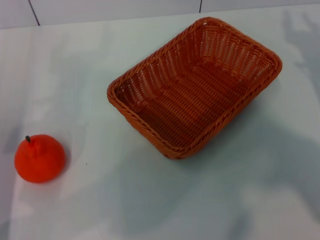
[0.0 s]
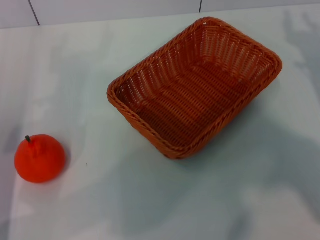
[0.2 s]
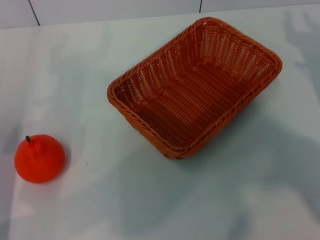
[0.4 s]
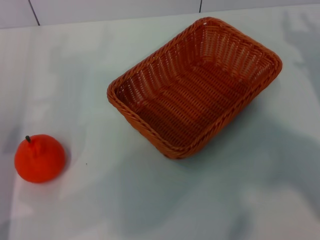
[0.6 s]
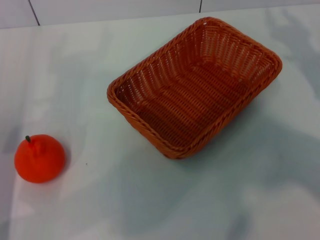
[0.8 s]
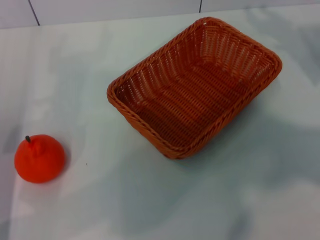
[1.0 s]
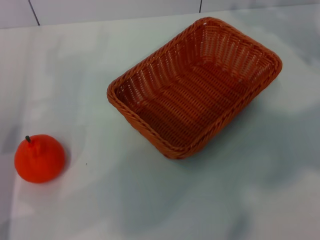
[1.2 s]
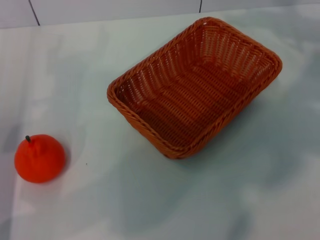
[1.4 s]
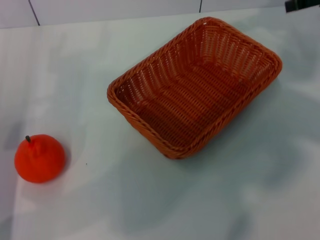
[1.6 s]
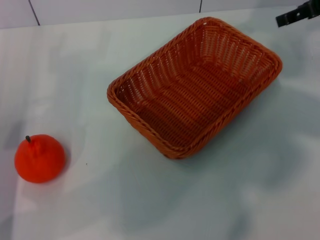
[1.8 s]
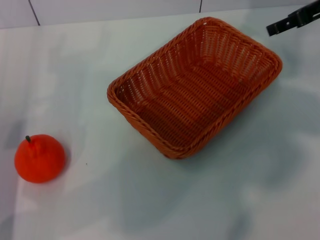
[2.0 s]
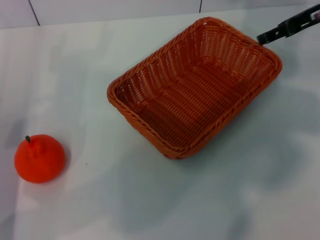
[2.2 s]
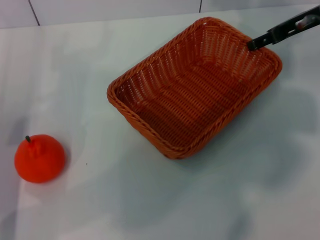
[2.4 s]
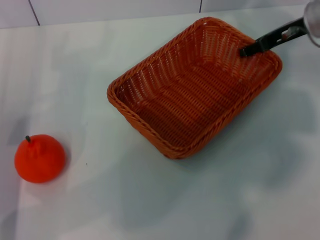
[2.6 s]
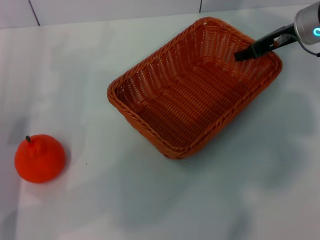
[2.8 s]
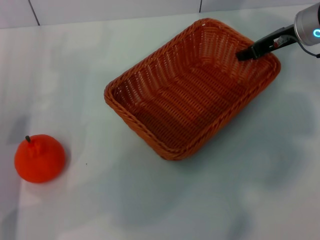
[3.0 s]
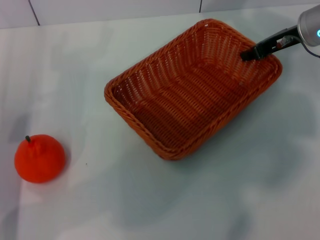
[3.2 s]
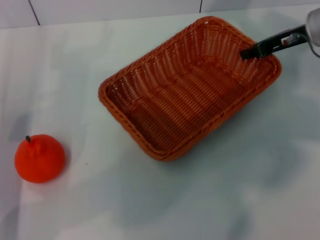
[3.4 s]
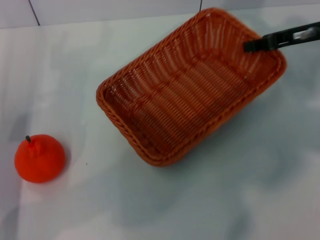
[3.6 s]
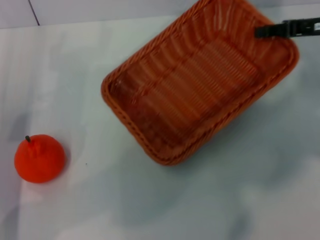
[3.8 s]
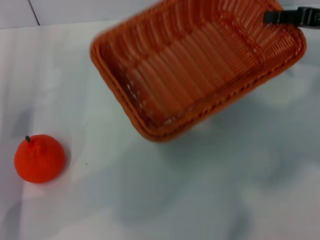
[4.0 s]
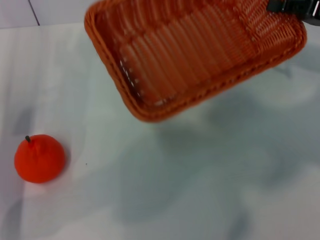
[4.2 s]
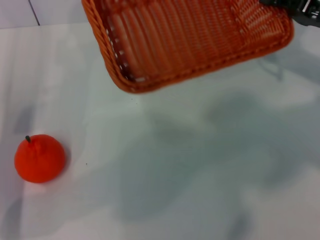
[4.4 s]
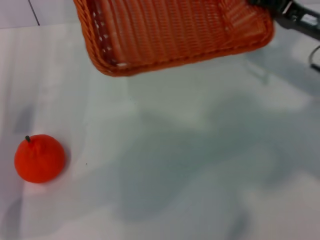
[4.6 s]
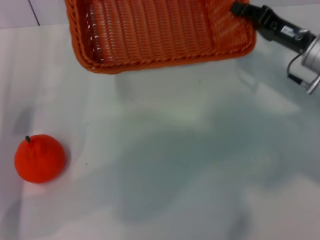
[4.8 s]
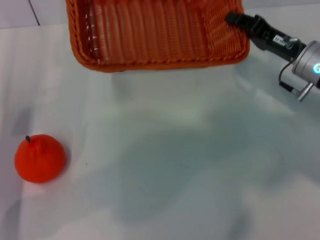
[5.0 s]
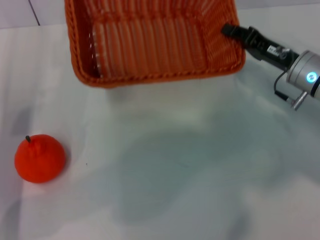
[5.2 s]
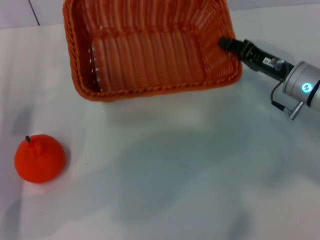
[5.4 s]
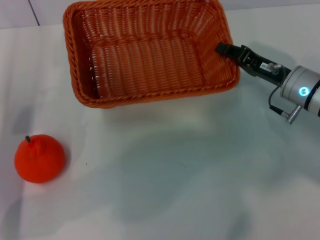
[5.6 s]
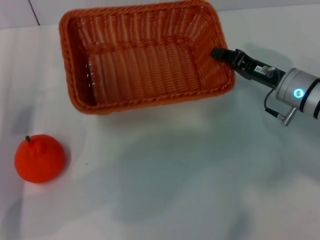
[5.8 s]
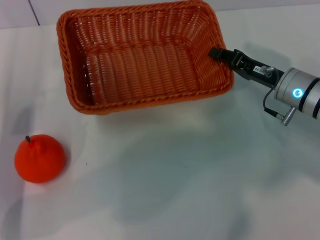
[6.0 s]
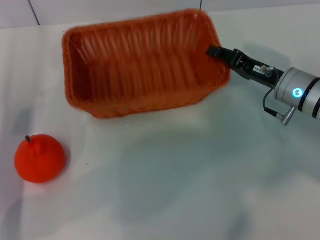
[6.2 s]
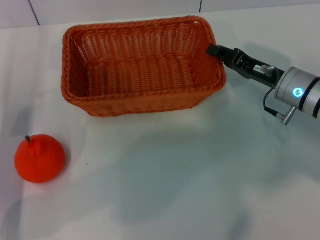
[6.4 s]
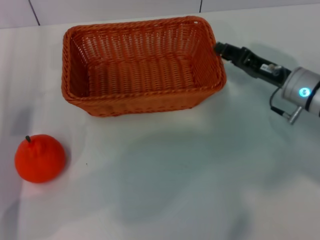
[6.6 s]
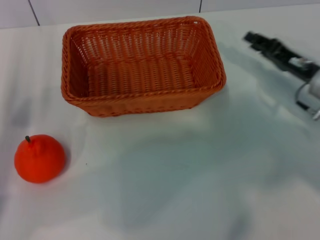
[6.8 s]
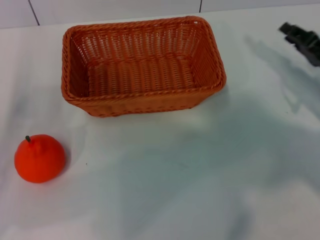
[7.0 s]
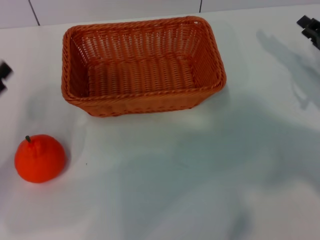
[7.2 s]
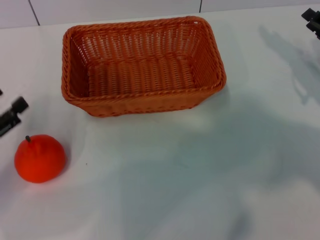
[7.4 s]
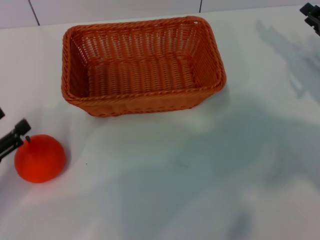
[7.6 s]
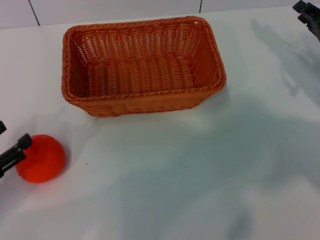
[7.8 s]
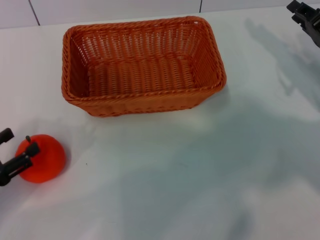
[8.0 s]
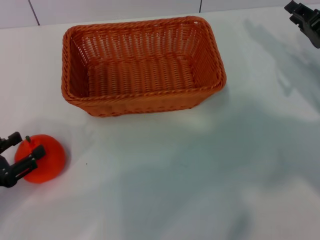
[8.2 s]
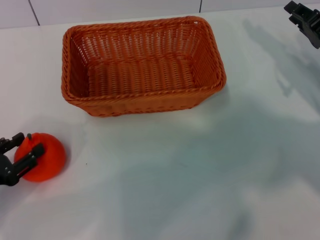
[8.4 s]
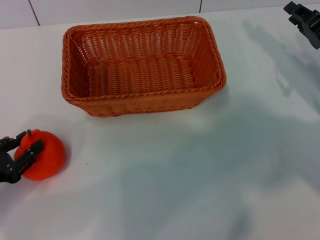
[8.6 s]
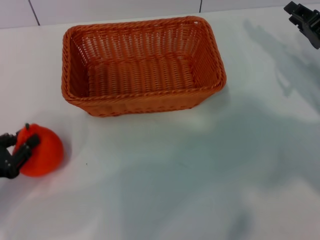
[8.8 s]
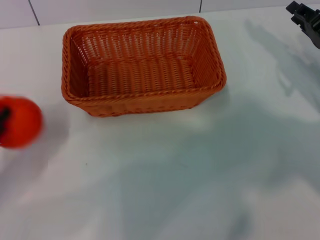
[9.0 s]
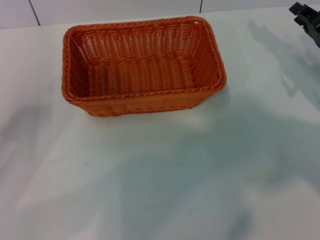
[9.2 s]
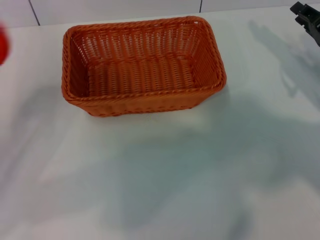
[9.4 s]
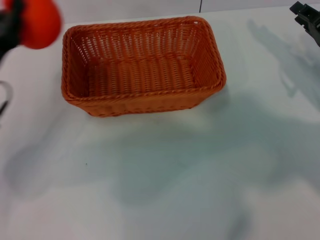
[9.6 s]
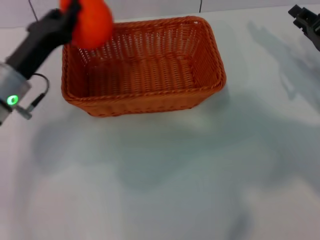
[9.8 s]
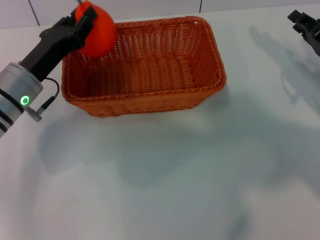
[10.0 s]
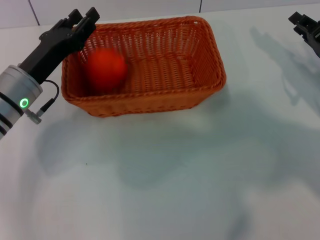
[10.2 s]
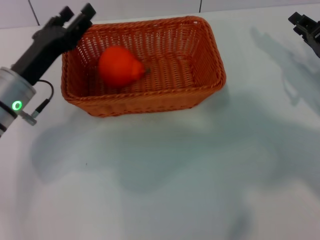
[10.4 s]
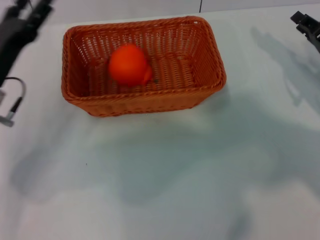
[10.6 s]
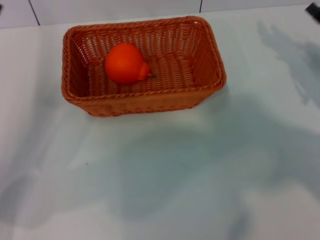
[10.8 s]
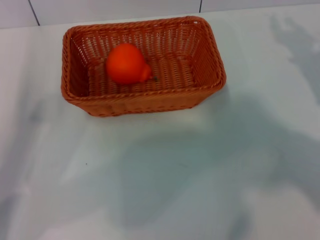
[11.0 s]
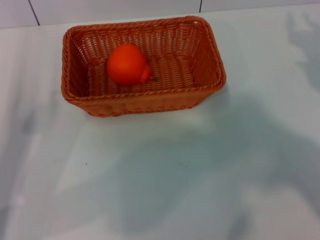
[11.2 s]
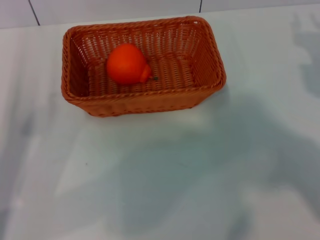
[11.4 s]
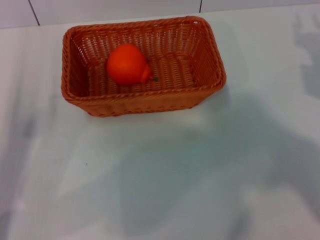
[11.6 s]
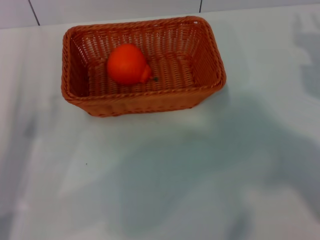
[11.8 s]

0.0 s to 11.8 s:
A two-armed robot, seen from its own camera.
Task of the whole recording: the right gripper pick up the yellow basket and place it horizontally in the middle of the table, the left gripper pick up the orange and place it into the yellow basket.
Step, 0.0 to 3.8 s: Pick up the light basket with the right gripper.
Step, 4.0 to 6.6 s: Place the light basket in the center of view with the right gripper.
Step, 6.8 to 8.8 s: Pick up the orange with the left gripper.
Step, 9.0 to 10.2 s: Place the orange into the light basket with the left gripper.
0.0 to 1.4 s: The right gripper shifts roughly 15 cm upward and forward.
1.4 to 3.0 s: The right gripper shifts roughly 15 cm to the left and downward.
3.0 to 4.4 s: The right gripper shifts approximately 10 cm to the right and backward, and closes its fingers.
4.4 to 6.0 s: The right gripper shifts roughly 10 cm downward and to the left.
6.0 to 7.4 s: The right gripper heads to the right, covering about 10 cm, and opens its fingers; the left gripper is displaced backward and to the left by some 10 cm.
7.4 to 8.8 s: The left gripper closes up.
8.8 to 10.4 s: The left gripper shifts roughly 15 cm forward and to the right.
10.4 to 11.8 s: The left gripper heads backward and to the left, covering about 10 cm, and opens up, while the right gripper shifts approximately 5 cm backward.

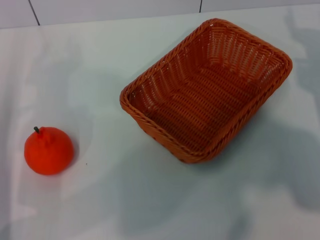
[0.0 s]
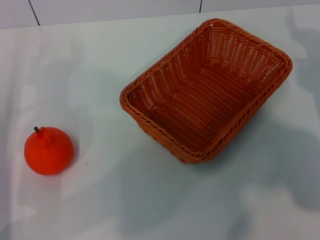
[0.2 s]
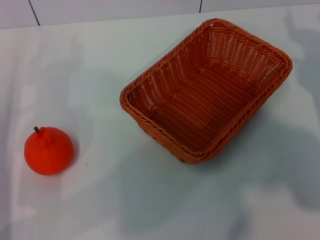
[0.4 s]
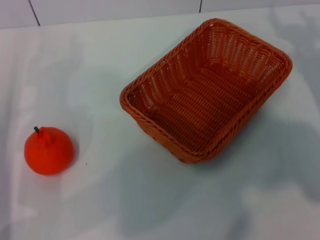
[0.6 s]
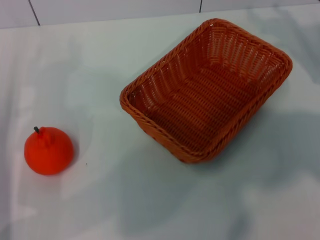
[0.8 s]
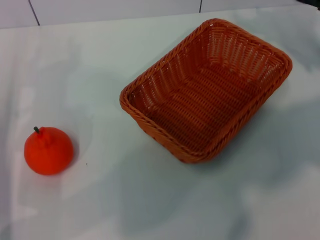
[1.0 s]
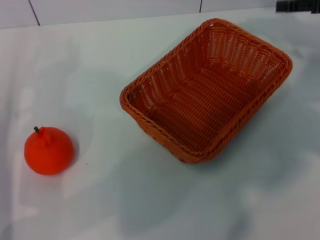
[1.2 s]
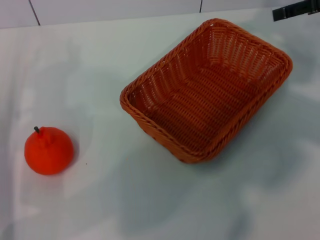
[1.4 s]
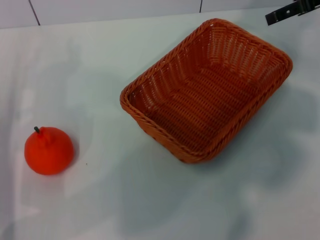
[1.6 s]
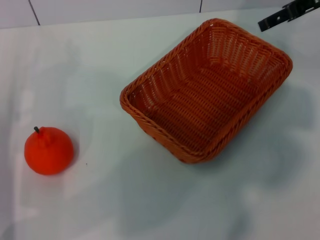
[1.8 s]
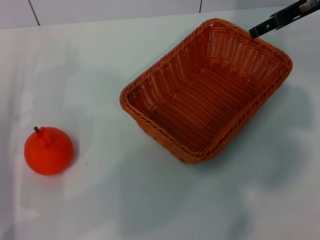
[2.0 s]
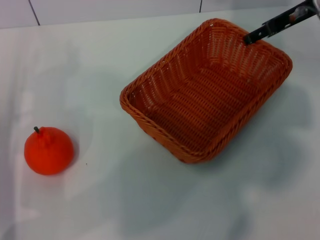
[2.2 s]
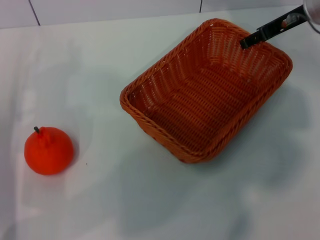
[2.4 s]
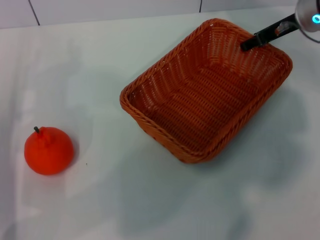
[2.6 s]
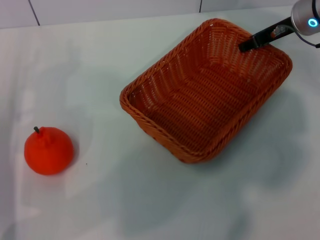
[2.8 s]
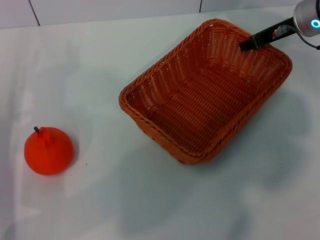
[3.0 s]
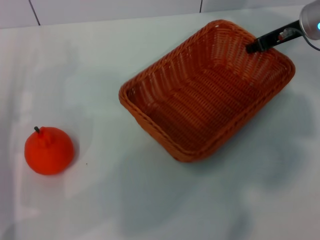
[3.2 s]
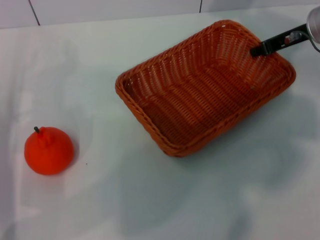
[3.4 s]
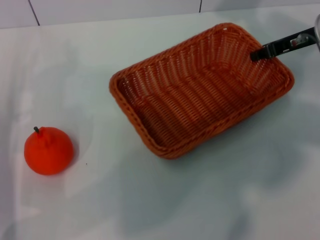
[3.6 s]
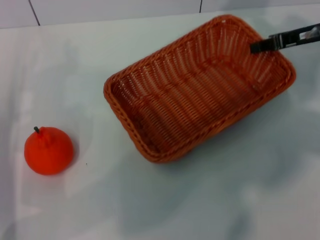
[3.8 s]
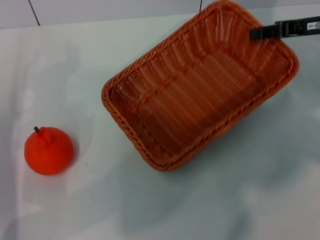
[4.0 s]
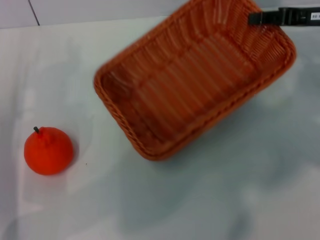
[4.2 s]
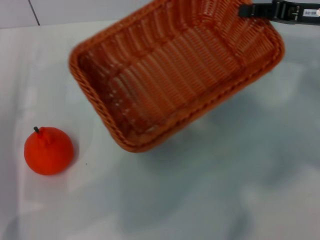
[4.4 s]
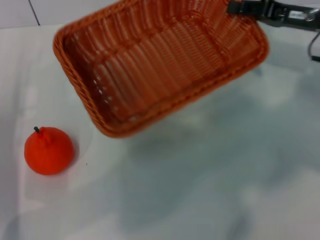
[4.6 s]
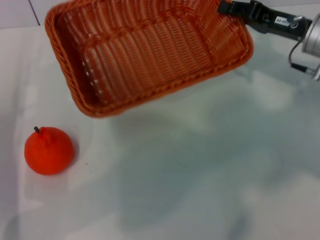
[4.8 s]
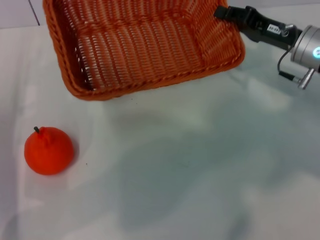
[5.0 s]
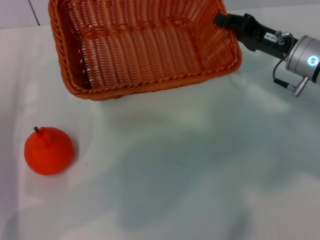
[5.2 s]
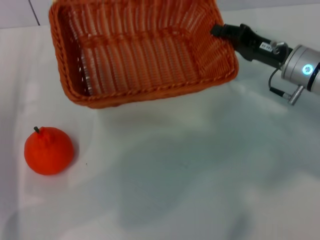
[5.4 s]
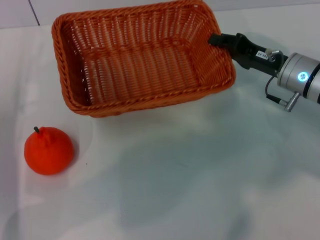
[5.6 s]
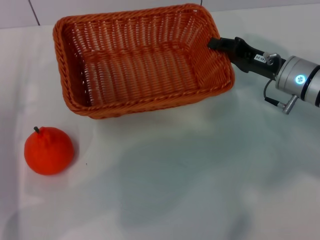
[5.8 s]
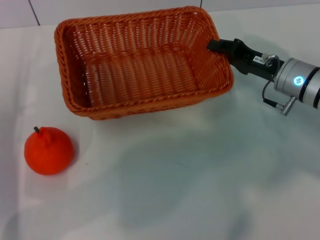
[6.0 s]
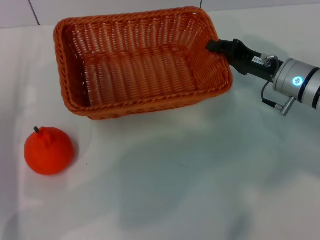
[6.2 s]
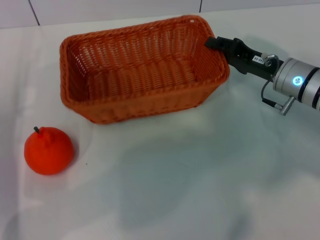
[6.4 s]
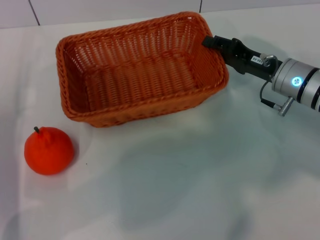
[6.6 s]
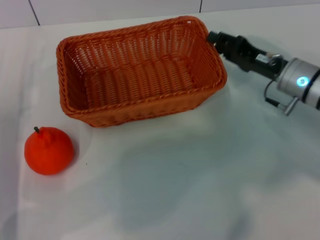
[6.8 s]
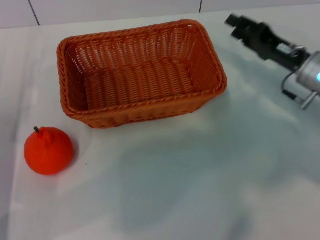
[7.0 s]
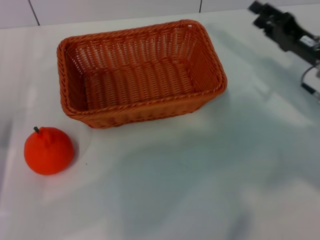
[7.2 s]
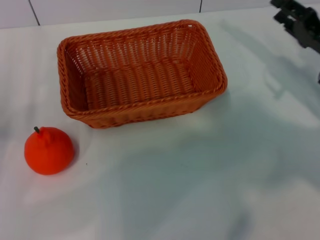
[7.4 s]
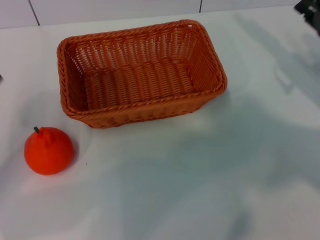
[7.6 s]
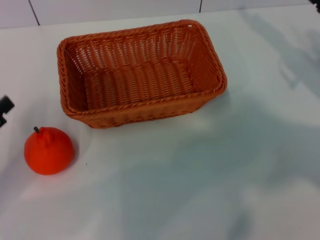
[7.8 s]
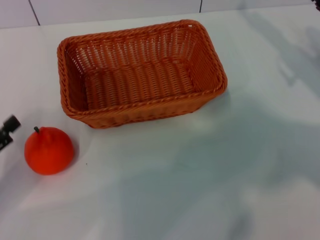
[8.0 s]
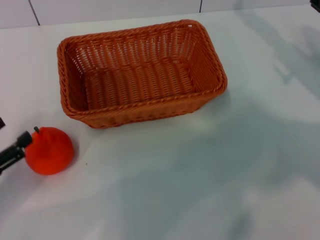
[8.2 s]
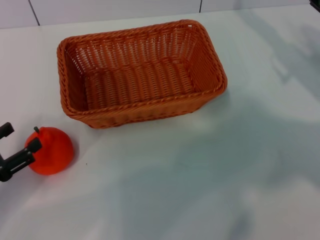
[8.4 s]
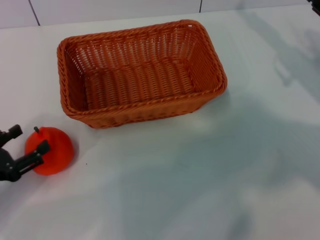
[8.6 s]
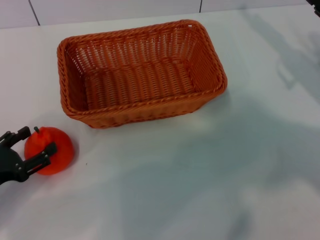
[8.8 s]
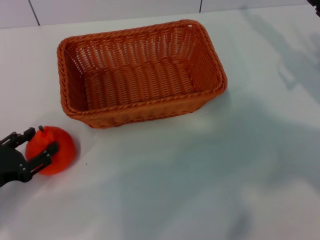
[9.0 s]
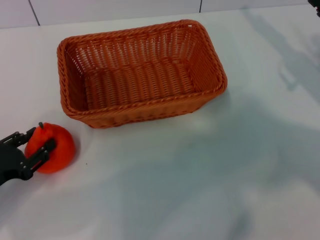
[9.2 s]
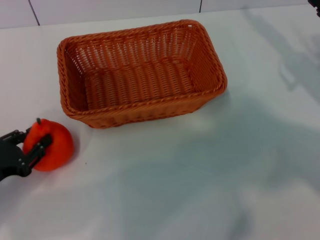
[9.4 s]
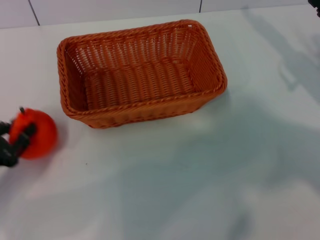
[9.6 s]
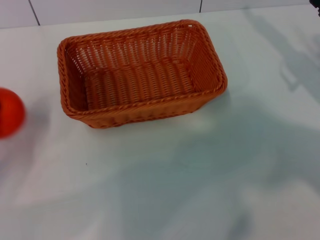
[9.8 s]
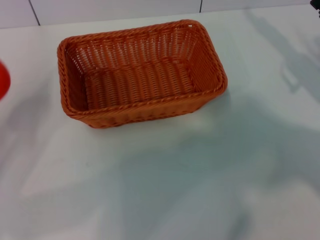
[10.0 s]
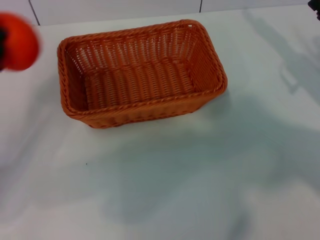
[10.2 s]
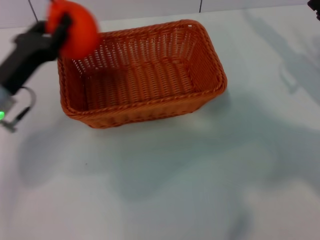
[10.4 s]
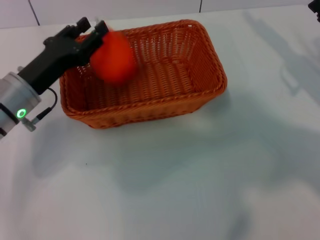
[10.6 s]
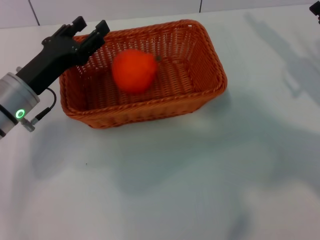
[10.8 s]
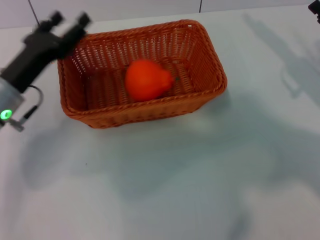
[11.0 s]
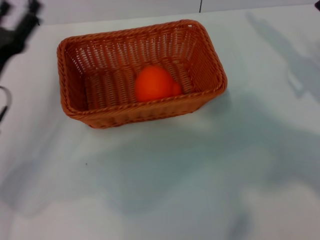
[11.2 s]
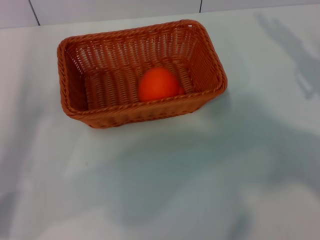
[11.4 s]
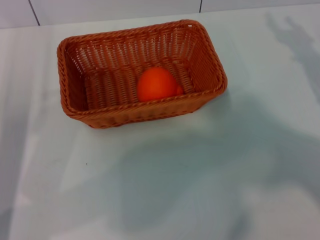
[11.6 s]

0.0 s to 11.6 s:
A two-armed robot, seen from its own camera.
Task of the whole recording: the right gripper pick up the yellow basket and place it horizontally in the middle of the table, the left gripper pick up the orange and place it into the yellow basket.
Step, 0.0 to 3.6 s: Pick up the light basket with the right gripper.
Step, 3.8 to 6.6 s: Place the light basket in the center of view with the right gripper.
Step, 7.0 to 9.6 s: Pick up the orange with the left gripper.
Step, 9.8 to 10.6 s: Place the orange into the light basket with the left gripper.
0.0 to 1.4 s: The right gripper travels upward and forward by approximately 20 cm.
1.4 to 2.8 s: The right gripper goes some 10 cm downward and to the left.
2.8 to 4.4 s: The right gripper goes approximately 5 cm backward, and closes up.
4.4 to 5.8 s: The right gripper travels downward and to the left by about 10 cm.
5.8 to 7.2 s: The right gripper heads to the right, covering some 5 cm, and opens up.
7.2 to 8.8 s: The right gripper moves approximately 5 cm.
8.8 to 10.2 s: The left gripper shifts about 10 cm forward, and closes up.
10.2 to 11.6 s: The left gripper moves approximately 10 cm to the right and comes back, and opens its fingers.
